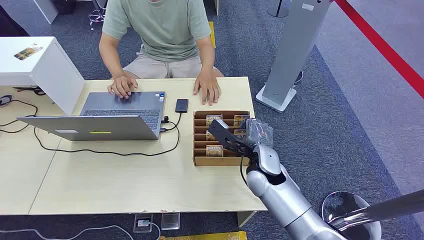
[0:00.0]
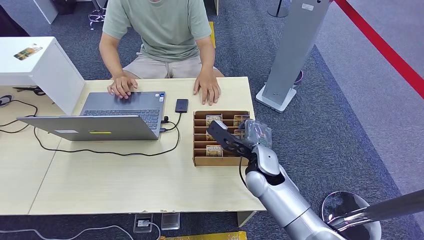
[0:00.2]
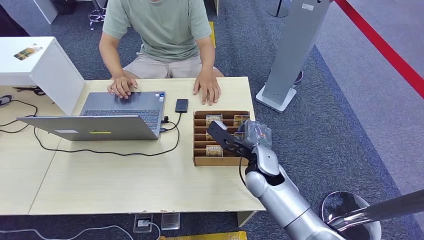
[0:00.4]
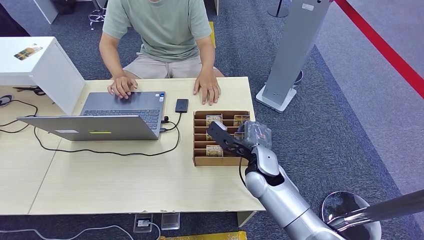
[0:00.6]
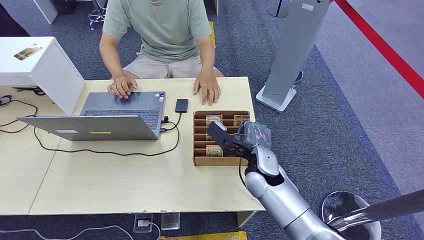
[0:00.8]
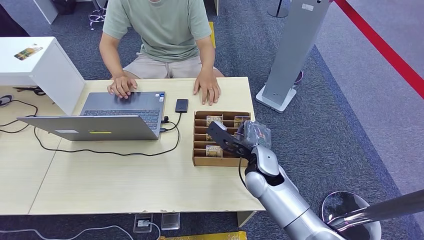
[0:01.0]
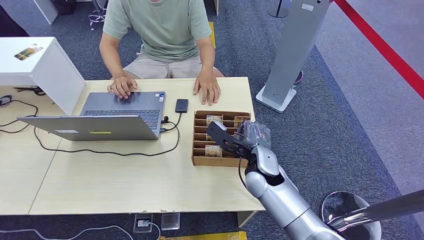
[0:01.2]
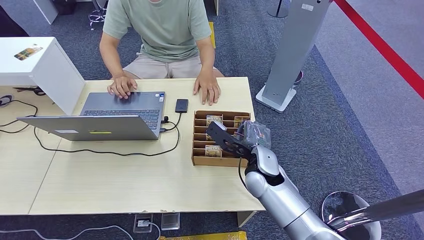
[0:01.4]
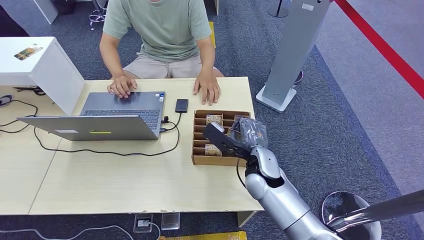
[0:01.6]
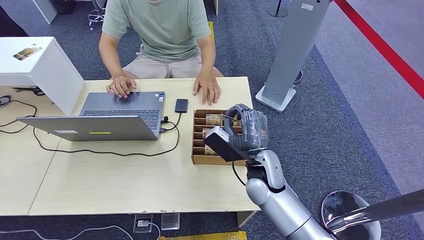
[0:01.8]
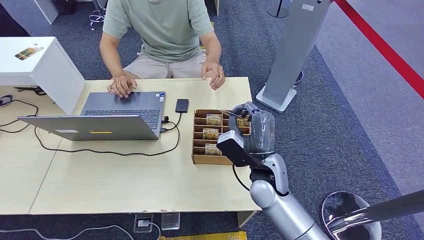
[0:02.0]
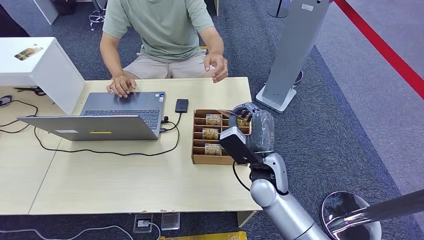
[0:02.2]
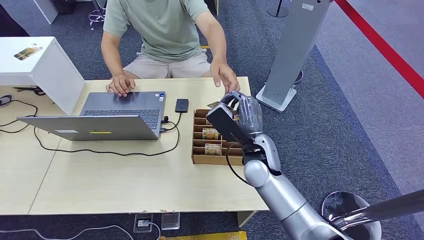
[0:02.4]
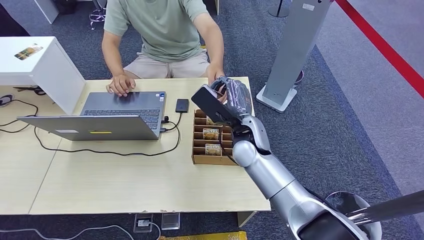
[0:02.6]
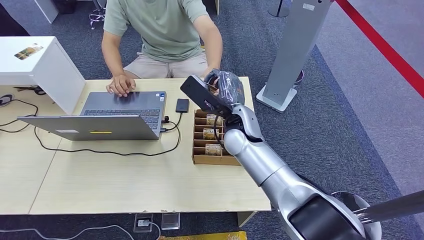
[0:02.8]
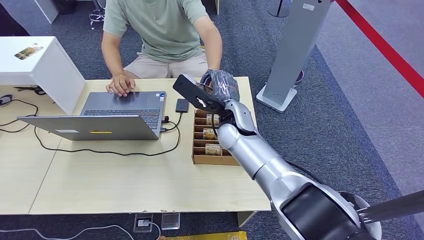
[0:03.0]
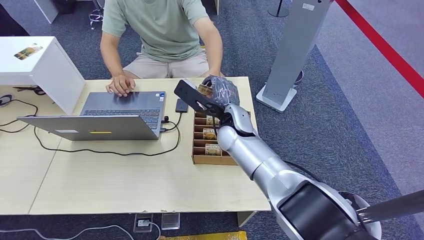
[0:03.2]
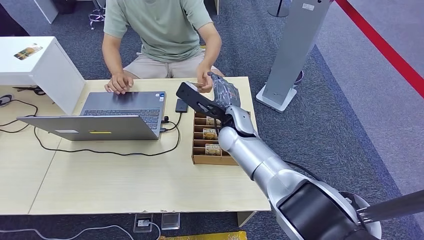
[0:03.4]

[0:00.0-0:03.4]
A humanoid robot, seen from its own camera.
Step, 0:00.0 to 0:01.8: Pick up the room card from the card holder.
Step, 0:02.6 to 0:03.4: Hand the room card to the target.
0:01.6 to 0:03.4: The right hand is displaced forward, upward and to the left by some 10 cm.
